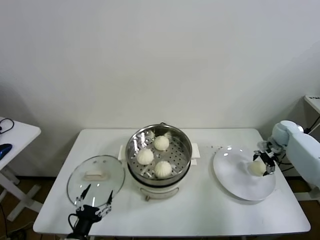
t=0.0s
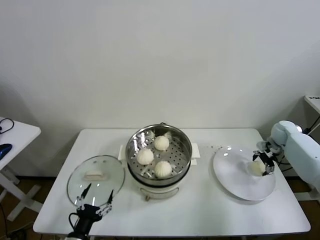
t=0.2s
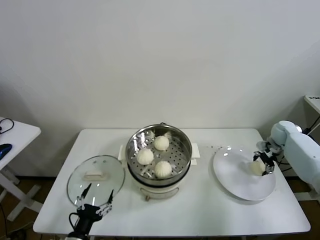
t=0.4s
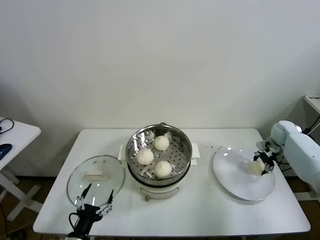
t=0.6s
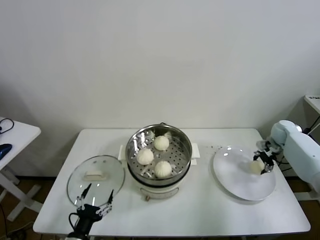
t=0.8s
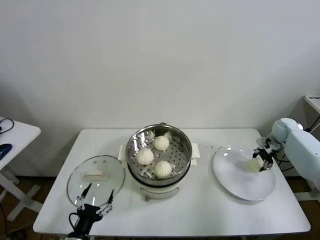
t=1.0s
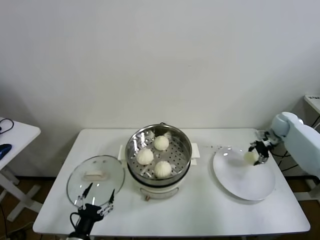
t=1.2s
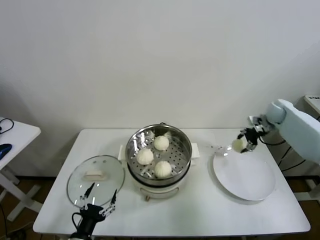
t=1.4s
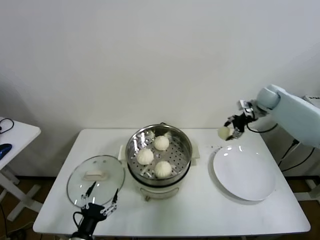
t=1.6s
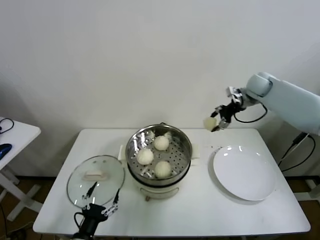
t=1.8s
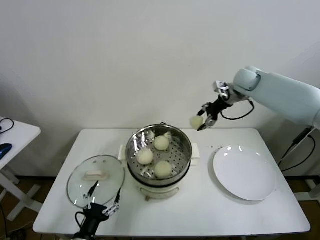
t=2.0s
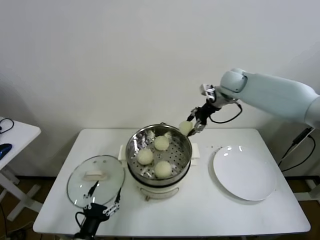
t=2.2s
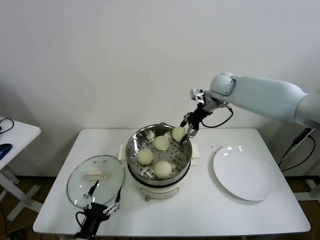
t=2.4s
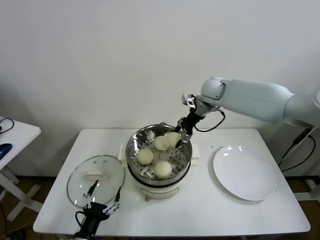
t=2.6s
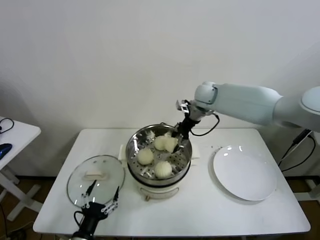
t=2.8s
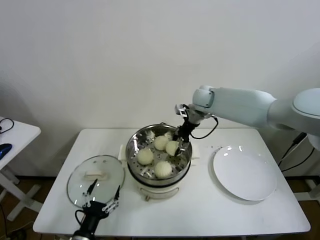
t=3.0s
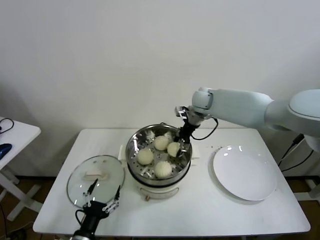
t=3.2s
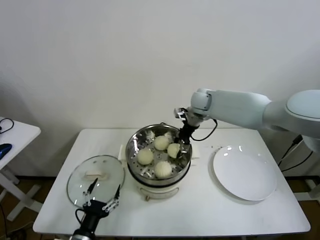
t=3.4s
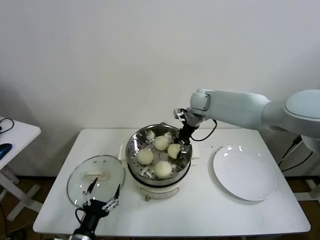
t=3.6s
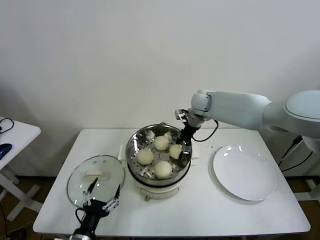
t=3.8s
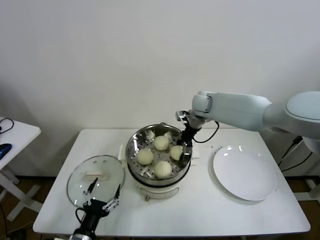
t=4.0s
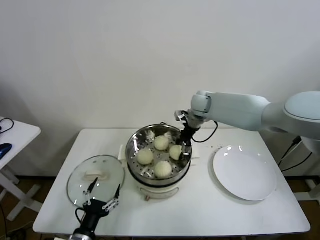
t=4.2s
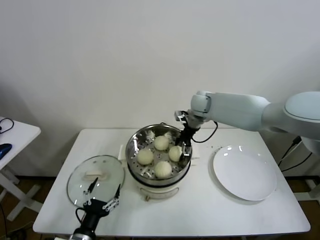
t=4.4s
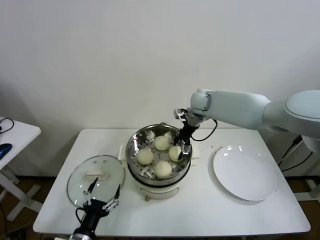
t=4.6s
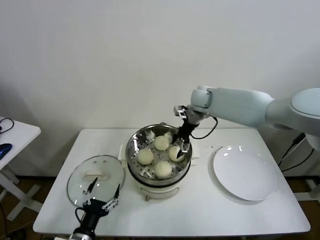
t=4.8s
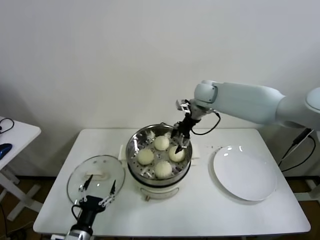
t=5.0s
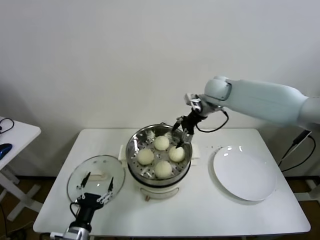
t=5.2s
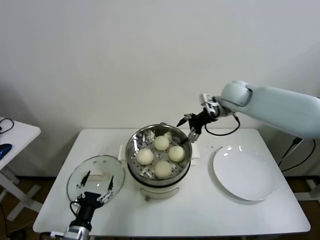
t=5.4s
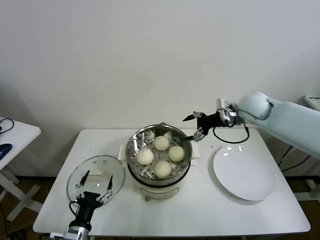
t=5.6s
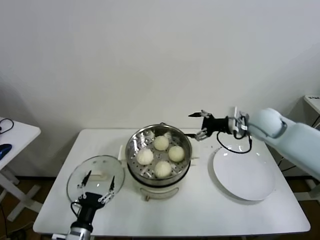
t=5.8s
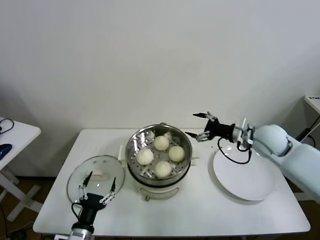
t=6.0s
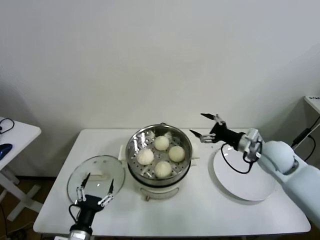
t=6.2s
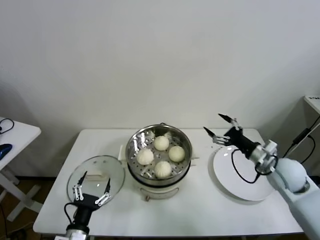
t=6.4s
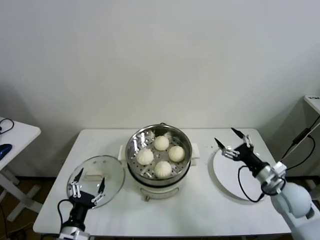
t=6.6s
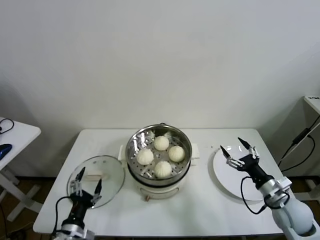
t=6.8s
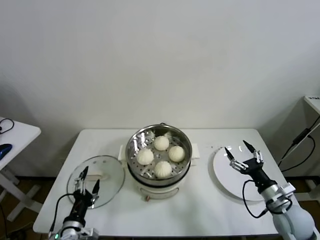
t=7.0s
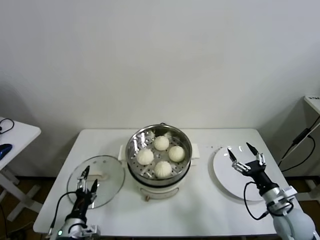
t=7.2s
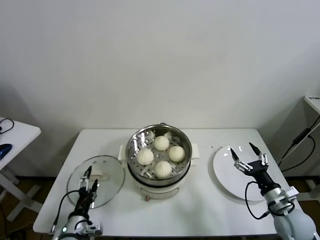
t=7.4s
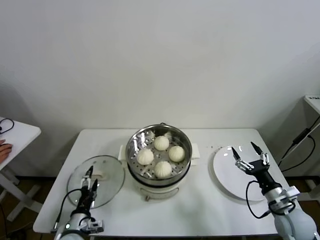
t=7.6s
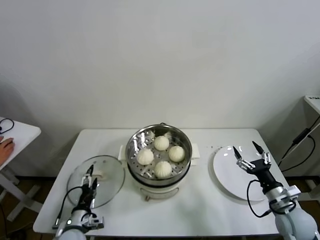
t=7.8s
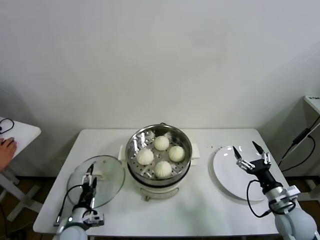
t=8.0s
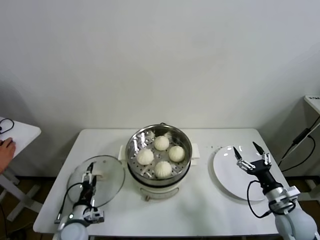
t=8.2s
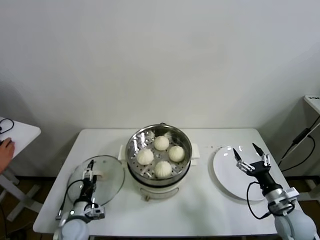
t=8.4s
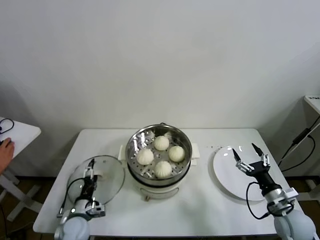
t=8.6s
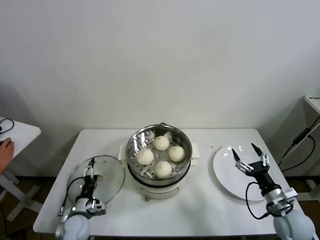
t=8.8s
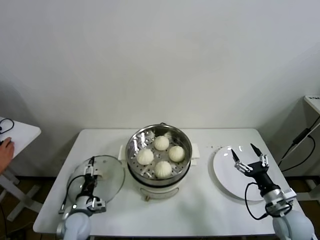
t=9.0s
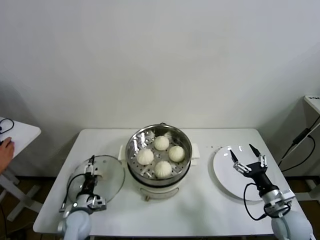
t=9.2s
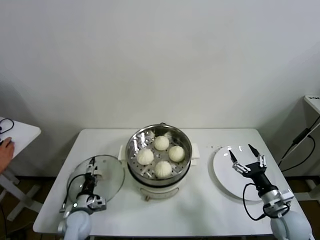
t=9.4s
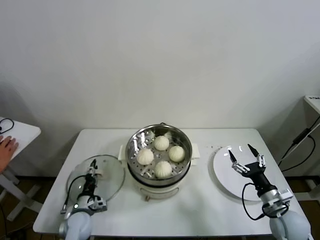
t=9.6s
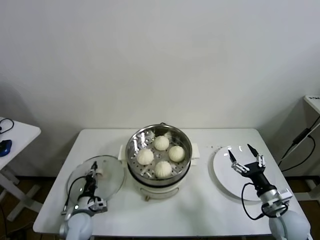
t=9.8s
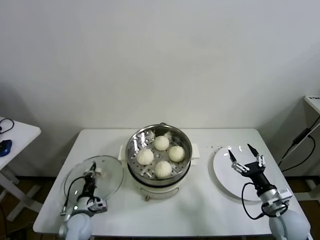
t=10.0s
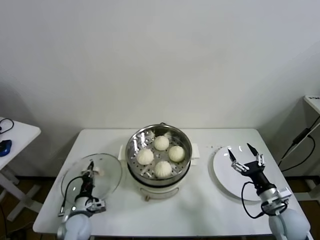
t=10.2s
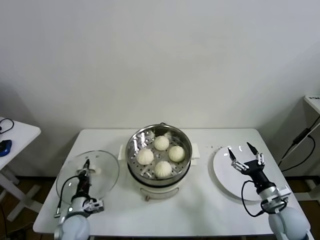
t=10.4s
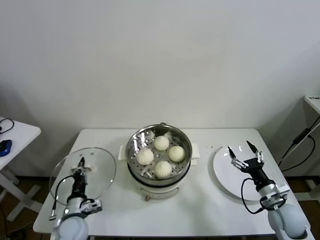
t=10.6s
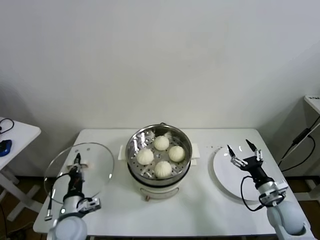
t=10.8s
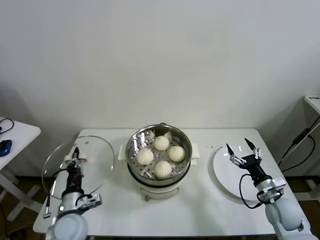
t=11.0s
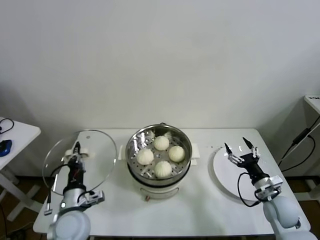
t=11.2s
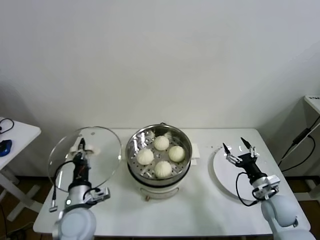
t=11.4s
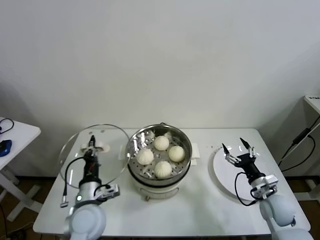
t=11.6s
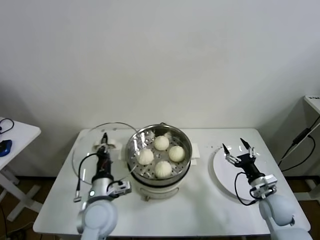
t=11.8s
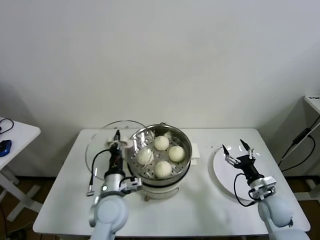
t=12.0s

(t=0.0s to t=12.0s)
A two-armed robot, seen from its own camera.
Task of the whole recording: take steamed baozi put them in steamer.
Step, t=1.0s - t=4.6s: Place the baozi on the steamer with right gripper.
Step, t=4.8s - t=9.8s: Grasp the pot lid with left gripper.
t=0.0s - t=1.6s: The right gripper moves upward, to the left and forward, some 20 cm, and closes up.
t=1.6s - t=3.0s: The right gripper shifts roughly 25 cm to the left.
t=3.0s - t=4.4s: The right gripper opens its fingers.
t=4.4s - t=6.0s: The right gripper shifts roughly 25 cm to the right and backward.
t=6.0s - t=7.6s: The right gripper is displaced backward and downward by about 25 cm; the left gripper travels forward by roughly 5 cm.
t=7.6s - t=9.0s: The left gripper heads forward, covering about 5 cm.
t=9.0s - t=10.4s: The left gripper closes up.
t=10.4s - t=12.0s: The left gripper is displaced to the right and upward by some 20 cm, while the right gripper changes place by approximately 5 cm.

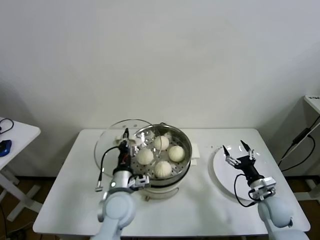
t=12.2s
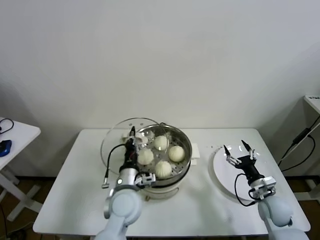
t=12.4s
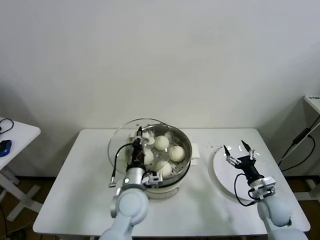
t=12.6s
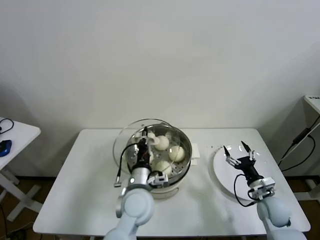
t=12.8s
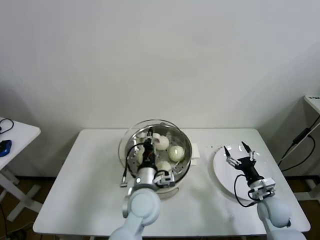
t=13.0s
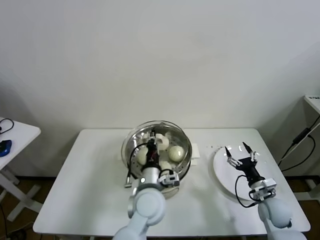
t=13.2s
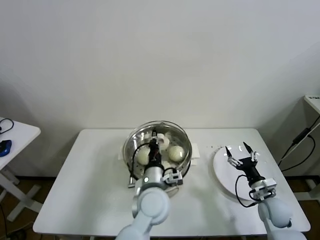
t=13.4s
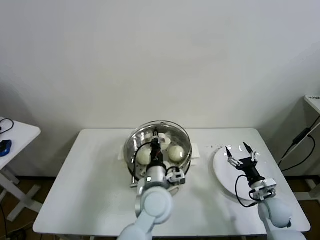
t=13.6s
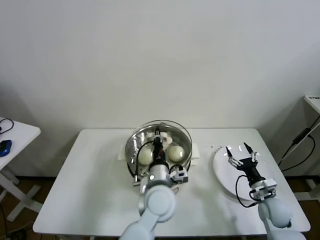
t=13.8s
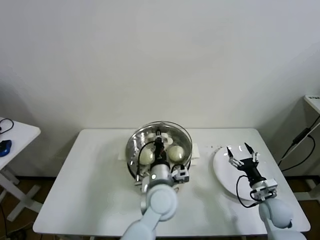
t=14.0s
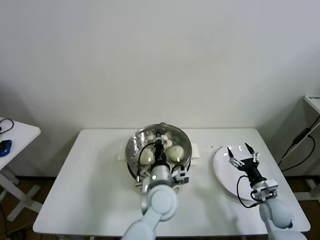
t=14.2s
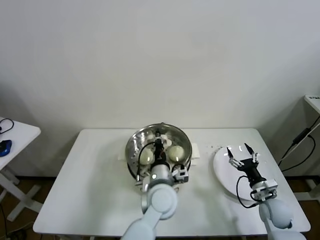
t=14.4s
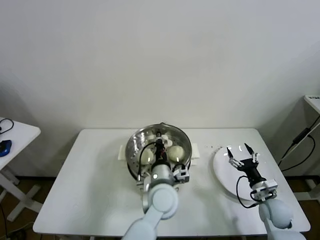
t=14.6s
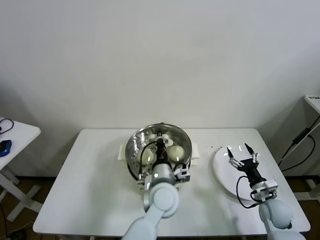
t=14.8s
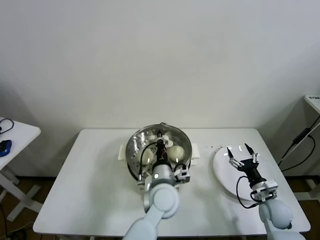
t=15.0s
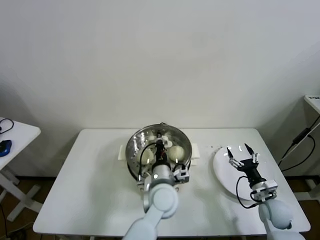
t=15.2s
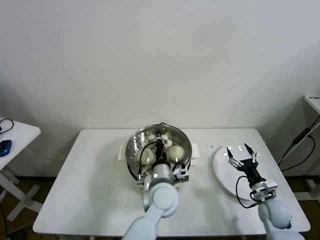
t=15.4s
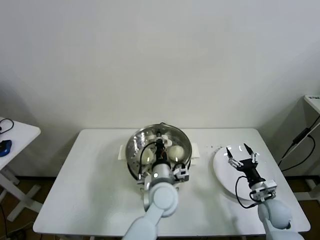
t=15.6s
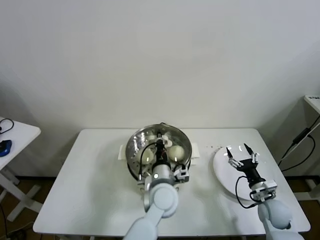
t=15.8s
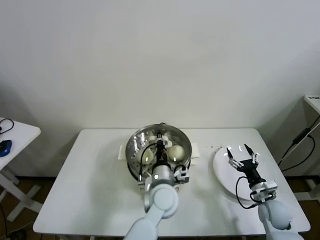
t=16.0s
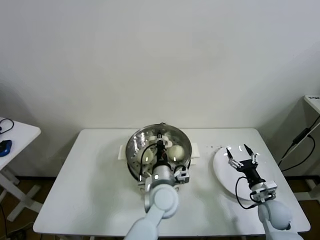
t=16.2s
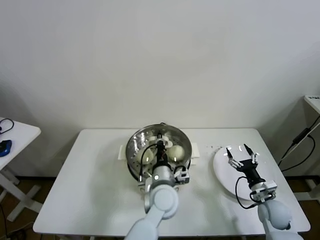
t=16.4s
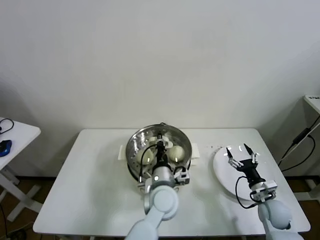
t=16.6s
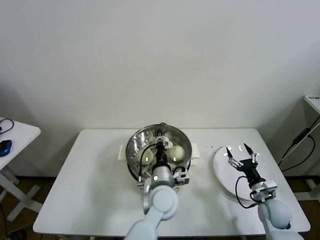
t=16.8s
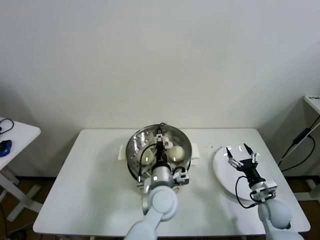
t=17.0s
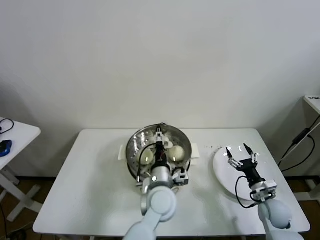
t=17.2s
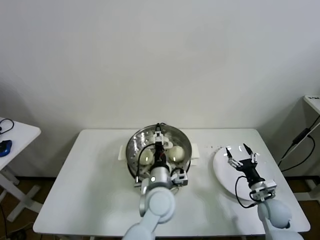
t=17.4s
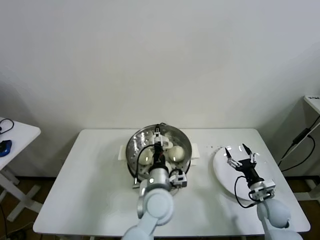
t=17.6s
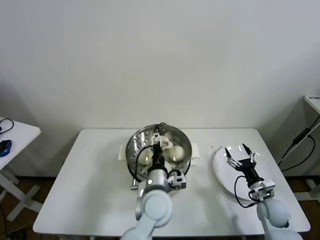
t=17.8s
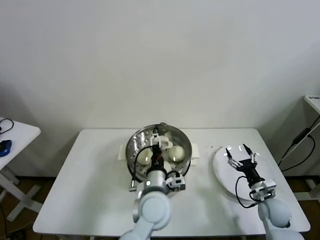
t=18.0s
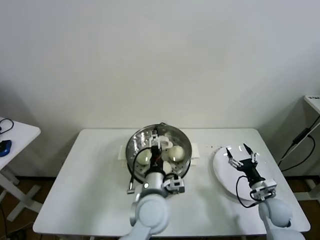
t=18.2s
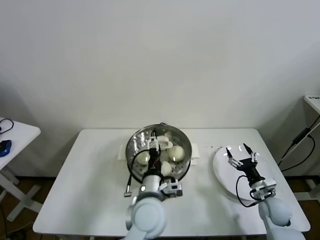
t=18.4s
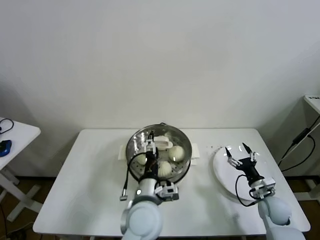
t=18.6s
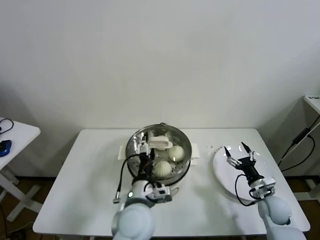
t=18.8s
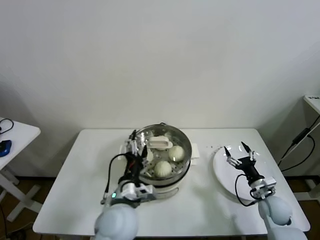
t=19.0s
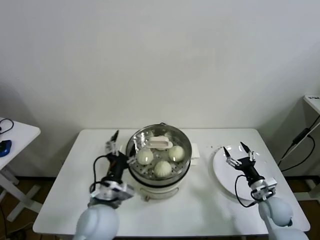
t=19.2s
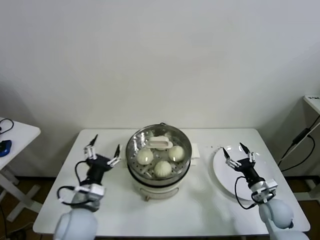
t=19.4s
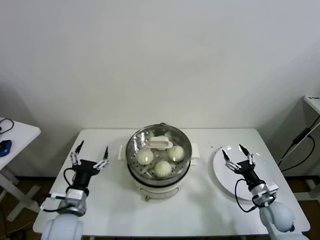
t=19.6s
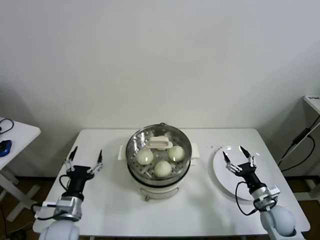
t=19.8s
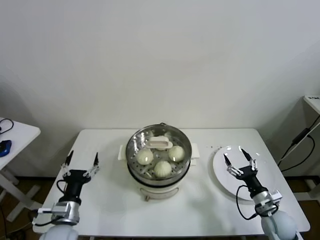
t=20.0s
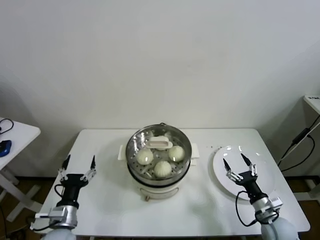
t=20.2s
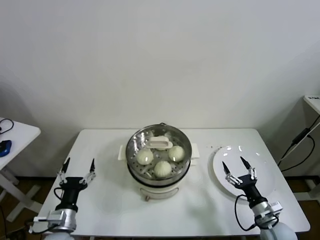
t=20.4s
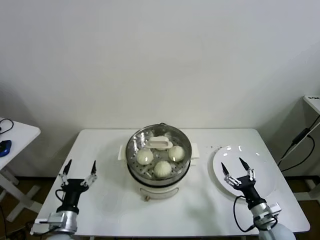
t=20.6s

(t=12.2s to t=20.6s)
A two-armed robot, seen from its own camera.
Task of the whole recording: take steamed baozi put them in steamer.
Step, t=12.2s - t=18.0s: Place the pot lid on the steamer with left gripper.
t=12.2s - t=13.6s: The left gripper moves to the right, roughly 10 cm.
t=13.6s - t=16.4s: The grippers move only a little.
t=16.4s - t=17.8s: The left gripper opens its fingers.
t=17.8s - t=19.2s: The left gripper is displaced to the left by about 15 cm.
t=19.2s - t=20.6s: The left gripper heads to the left and downward, covering about 20 cm. The right gripper moves backward, approximately 10 cm.
